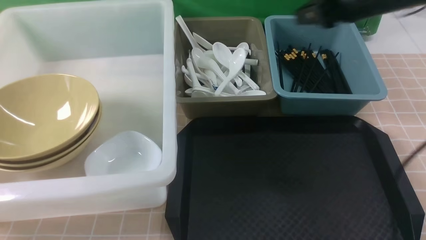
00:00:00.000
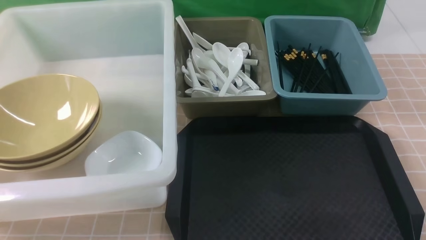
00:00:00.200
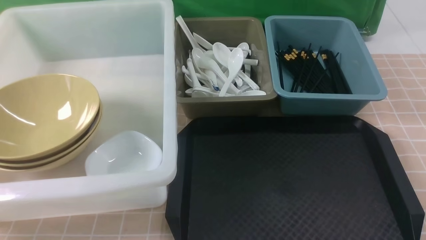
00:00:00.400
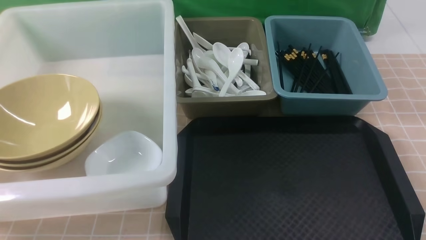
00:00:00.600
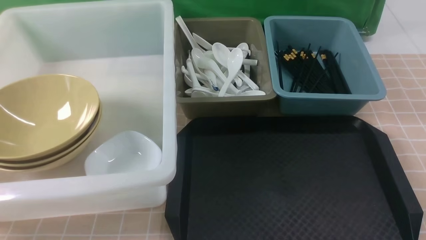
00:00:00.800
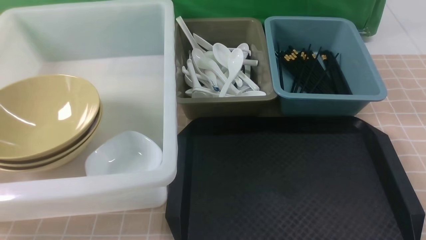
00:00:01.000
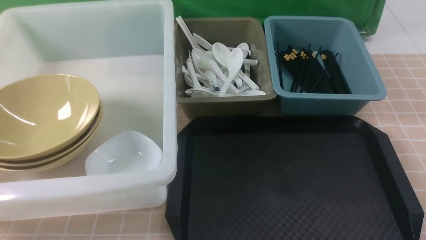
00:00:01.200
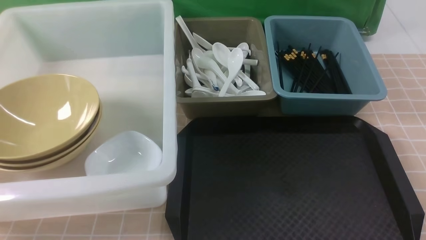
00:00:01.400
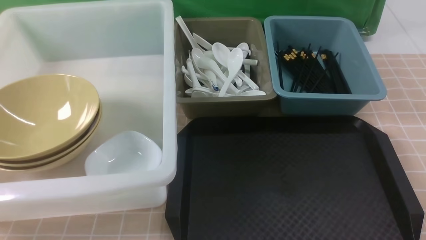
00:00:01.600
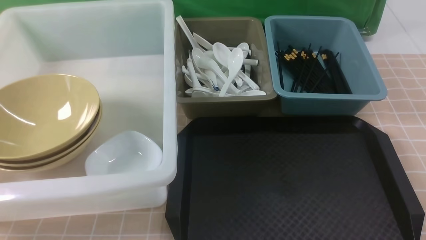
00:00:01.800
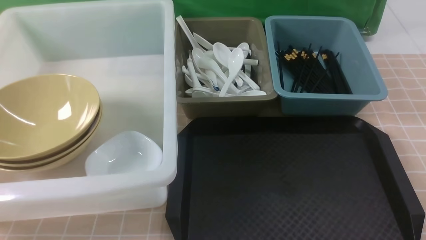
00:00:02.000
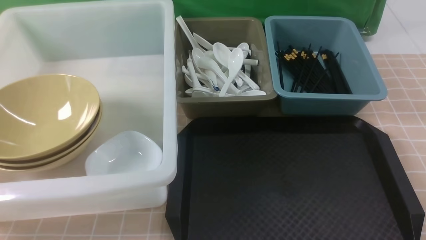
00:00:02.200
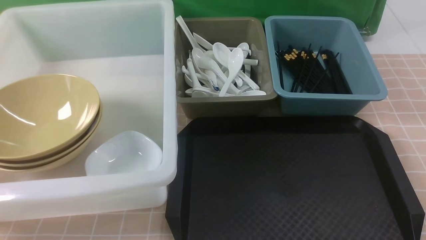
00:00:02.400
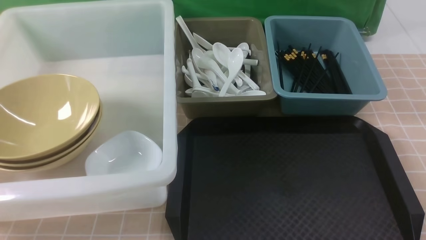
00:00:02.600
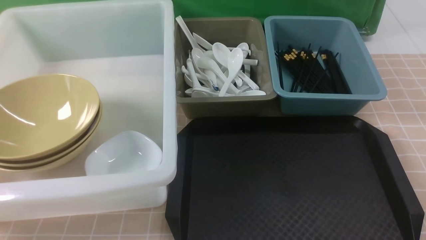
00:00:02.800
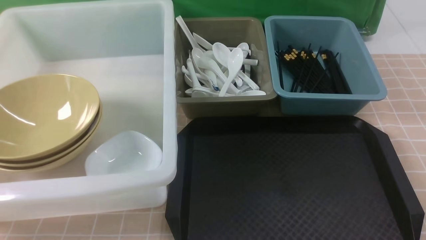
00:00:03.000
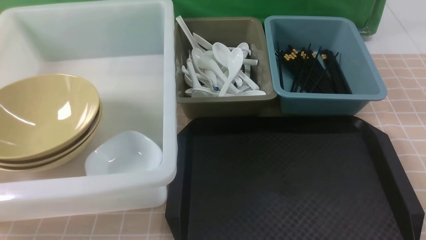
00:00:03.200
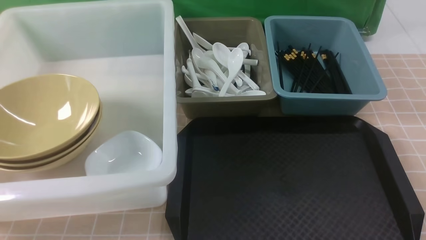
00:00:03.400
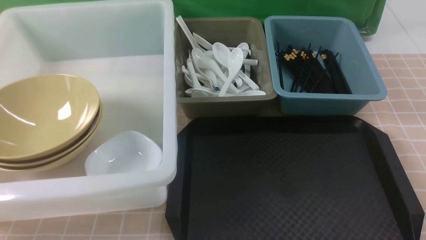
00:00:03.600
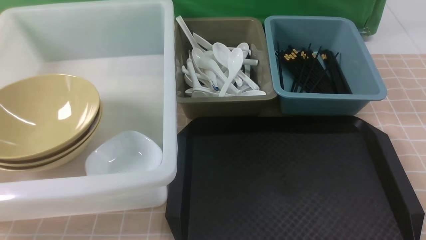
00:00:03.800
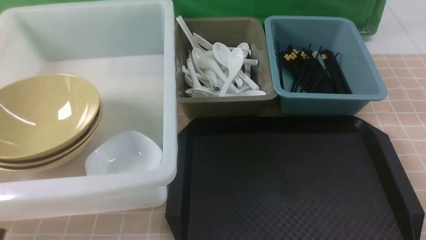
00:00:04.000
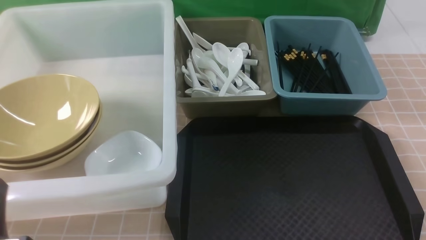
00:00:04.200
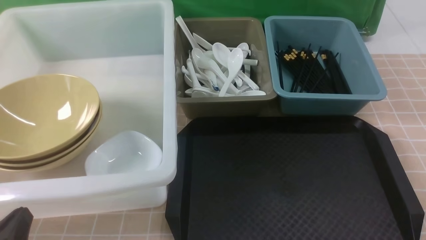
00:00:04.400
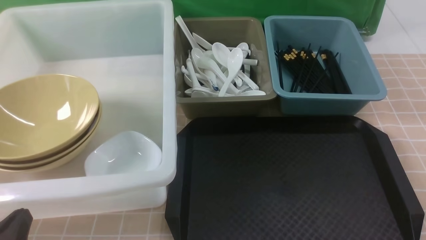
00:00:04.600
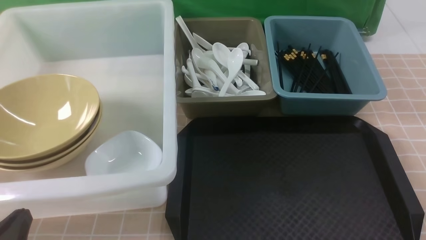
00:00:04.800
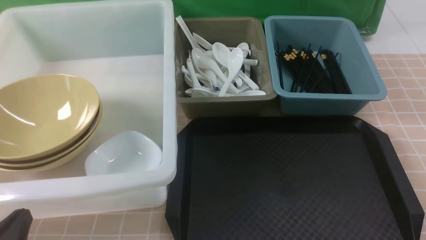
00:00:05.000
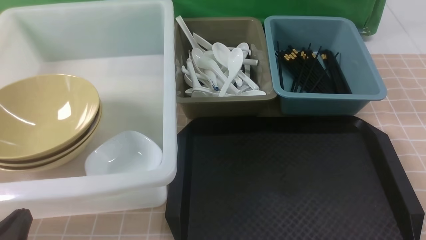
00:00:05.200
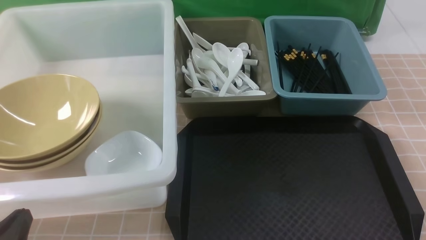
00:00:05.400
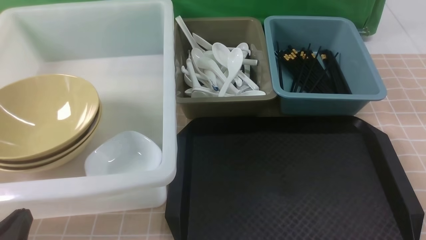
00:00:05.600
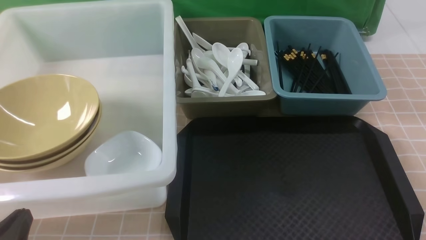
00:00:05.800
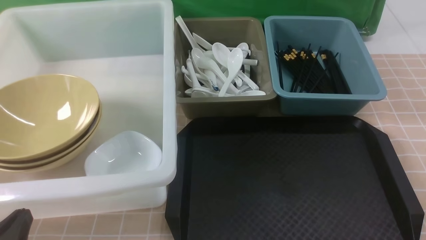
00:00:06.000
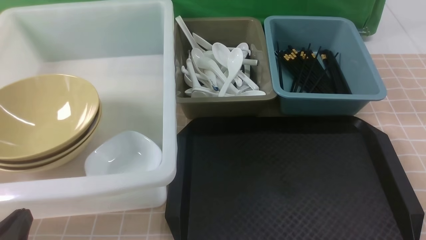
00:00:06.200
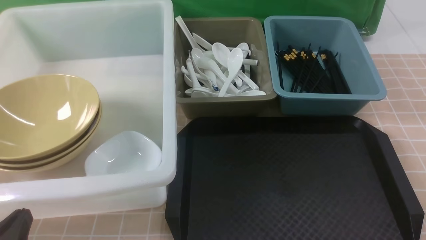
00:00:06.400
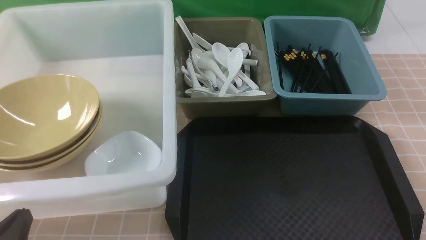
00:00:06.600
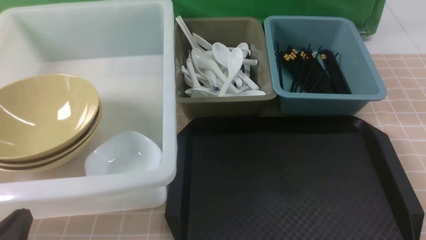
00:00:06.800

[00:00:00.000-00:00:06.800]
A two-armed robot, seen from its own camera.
Task of the whole recording: on brown table put chopsticks spoon bowls plates into blue grey white boxes.
00:00:00.000 to 00:00:01.400: The right gripper goes approximately 35 cm backward, and closes its fingers.
00:00:04.000 to 00:00:05.400: The left gripper shifts some 10 cm downward.
00:00:05.400 to 00:00:06.800: The two grippers keep their place.
